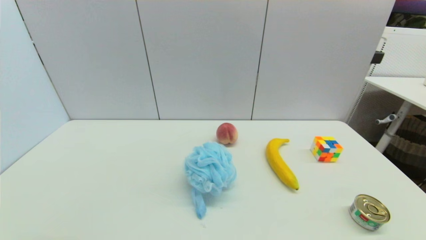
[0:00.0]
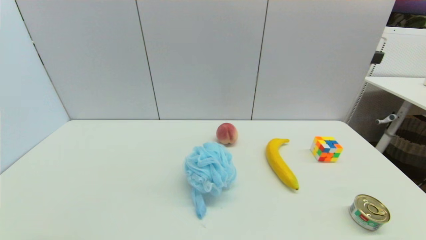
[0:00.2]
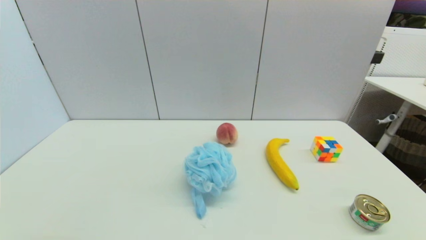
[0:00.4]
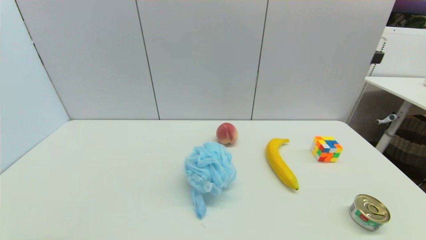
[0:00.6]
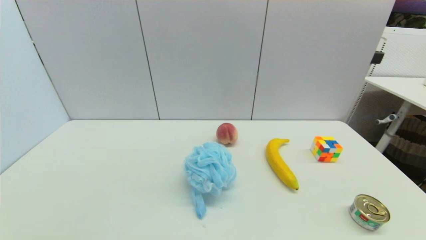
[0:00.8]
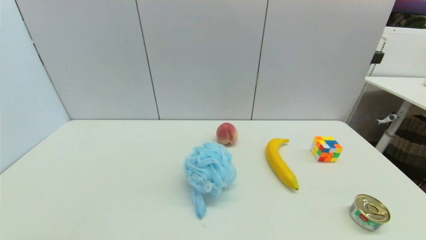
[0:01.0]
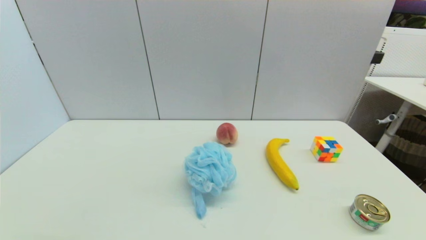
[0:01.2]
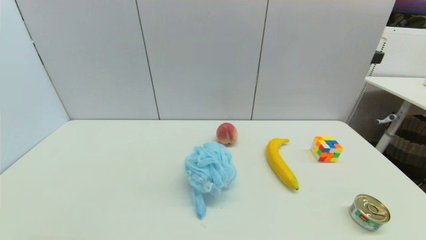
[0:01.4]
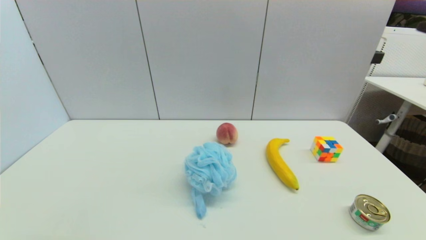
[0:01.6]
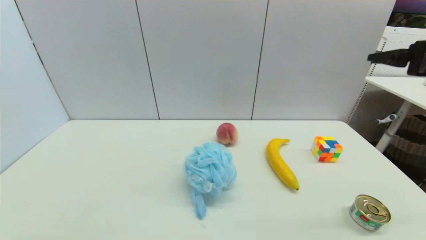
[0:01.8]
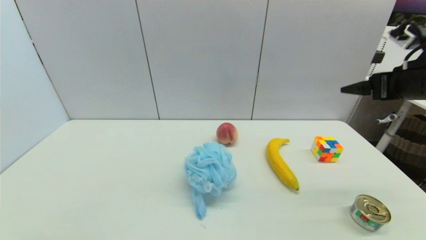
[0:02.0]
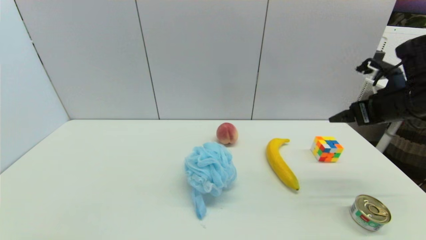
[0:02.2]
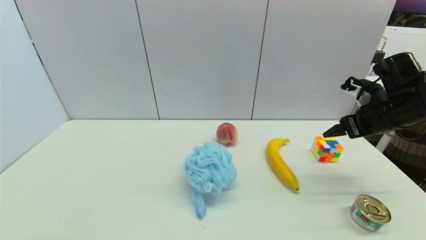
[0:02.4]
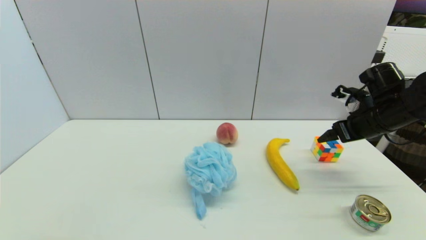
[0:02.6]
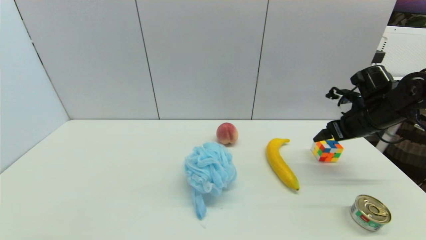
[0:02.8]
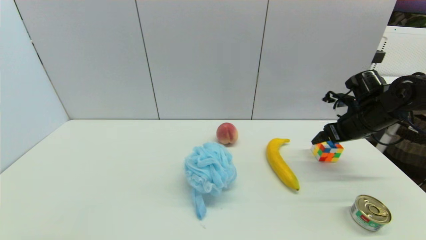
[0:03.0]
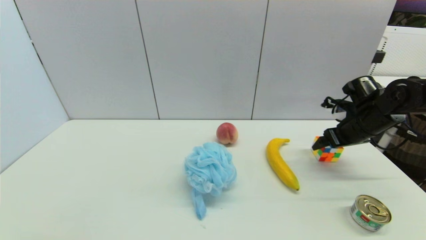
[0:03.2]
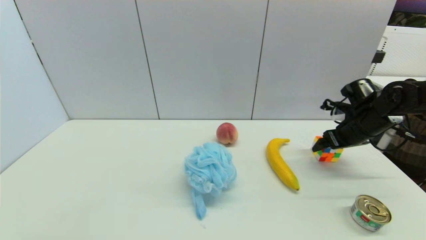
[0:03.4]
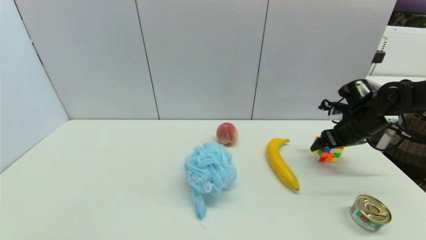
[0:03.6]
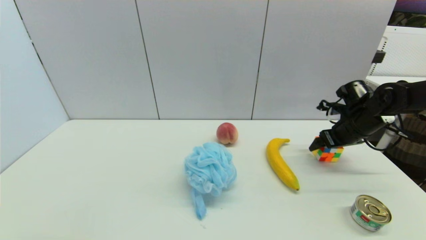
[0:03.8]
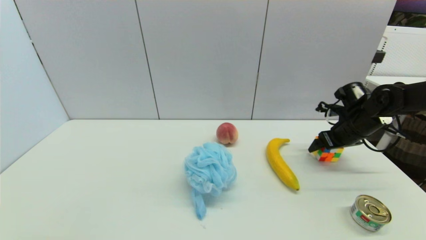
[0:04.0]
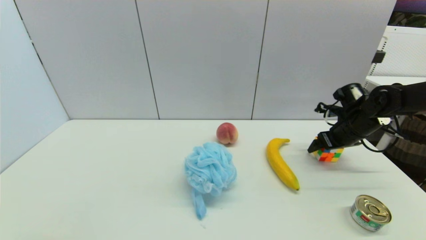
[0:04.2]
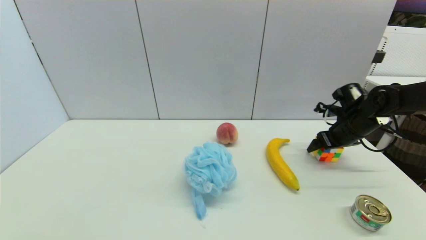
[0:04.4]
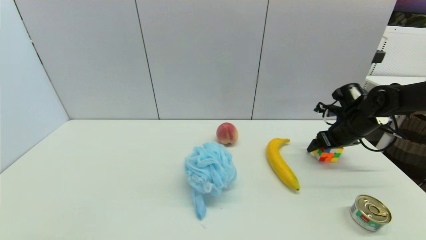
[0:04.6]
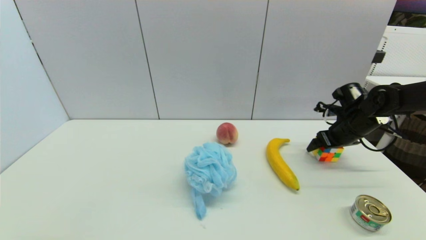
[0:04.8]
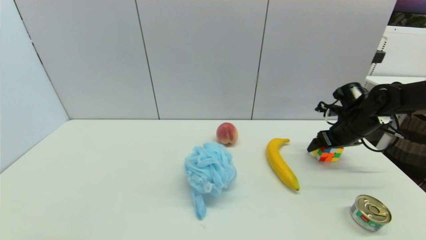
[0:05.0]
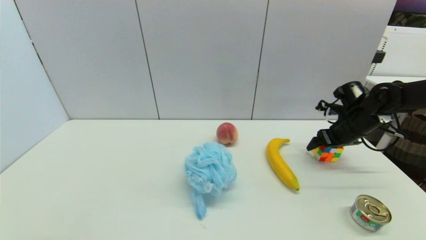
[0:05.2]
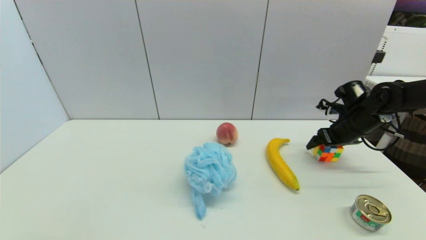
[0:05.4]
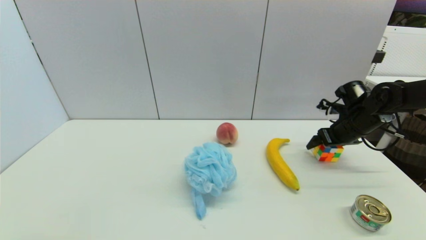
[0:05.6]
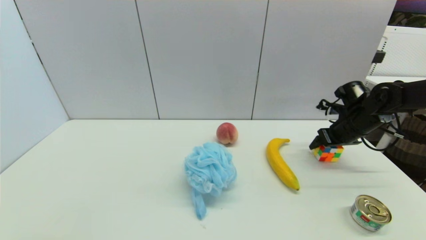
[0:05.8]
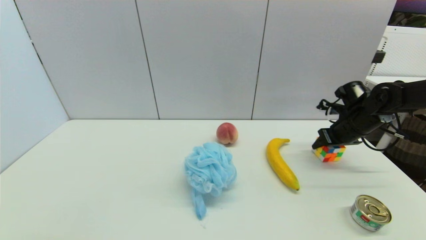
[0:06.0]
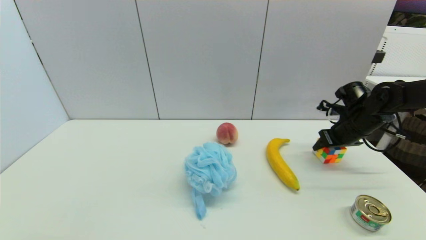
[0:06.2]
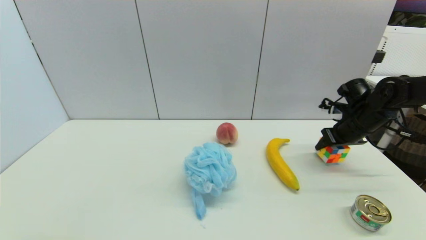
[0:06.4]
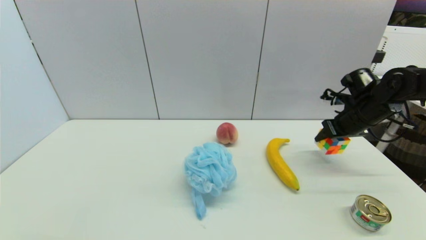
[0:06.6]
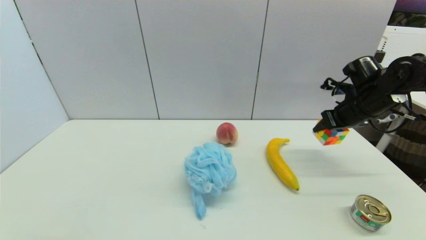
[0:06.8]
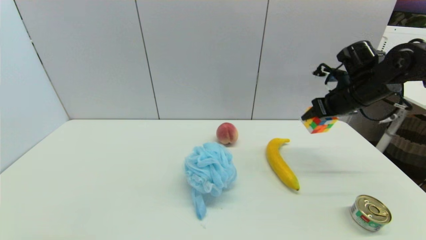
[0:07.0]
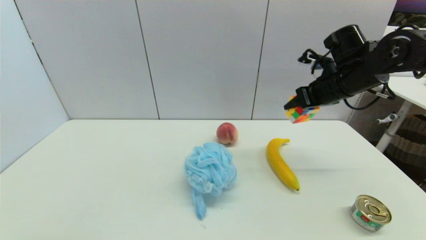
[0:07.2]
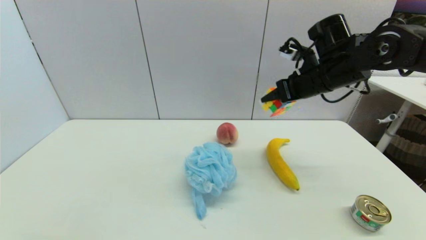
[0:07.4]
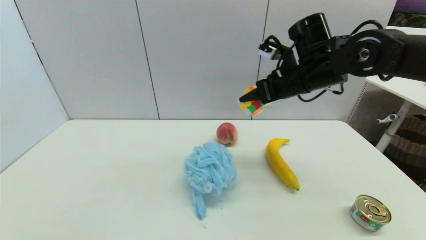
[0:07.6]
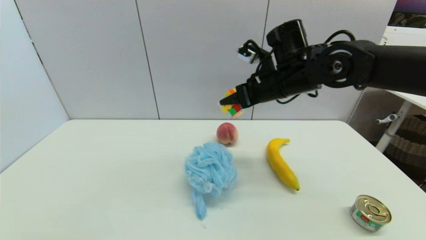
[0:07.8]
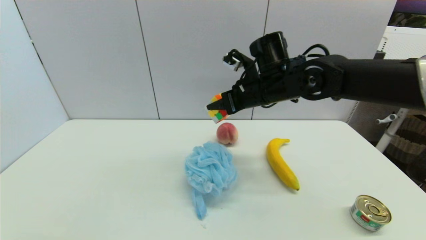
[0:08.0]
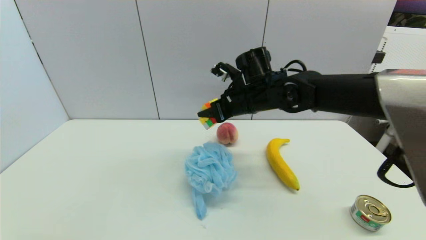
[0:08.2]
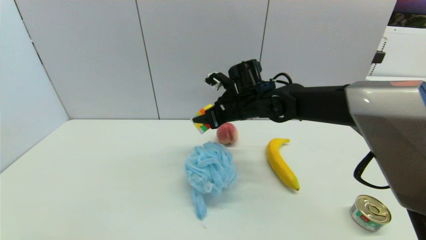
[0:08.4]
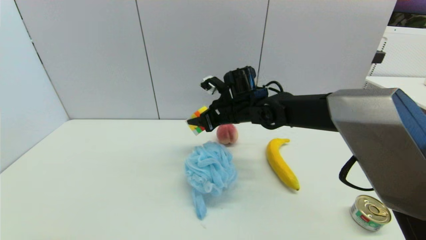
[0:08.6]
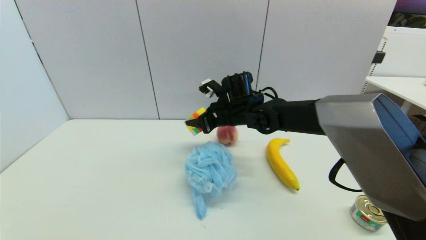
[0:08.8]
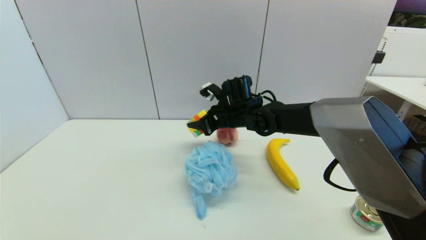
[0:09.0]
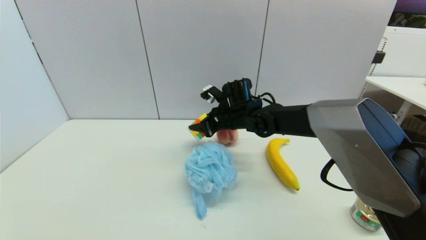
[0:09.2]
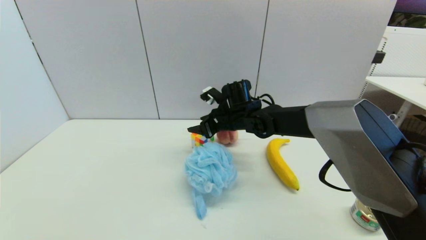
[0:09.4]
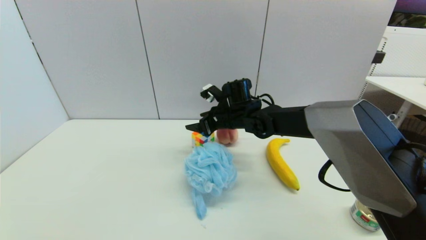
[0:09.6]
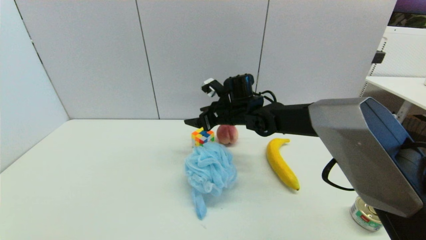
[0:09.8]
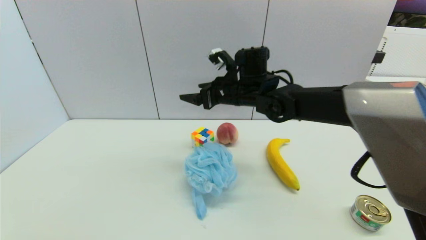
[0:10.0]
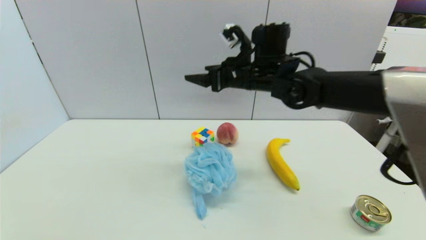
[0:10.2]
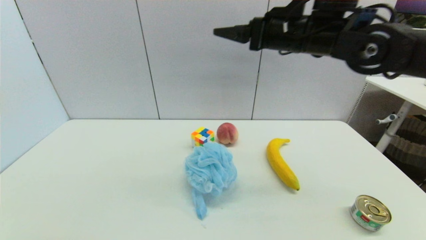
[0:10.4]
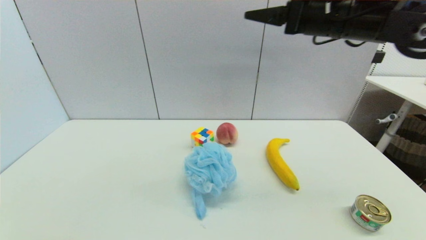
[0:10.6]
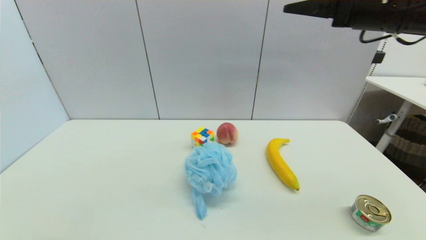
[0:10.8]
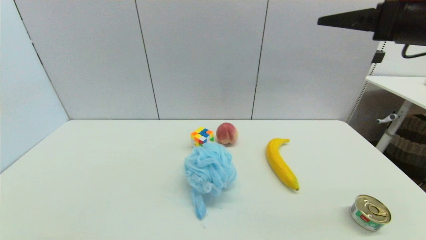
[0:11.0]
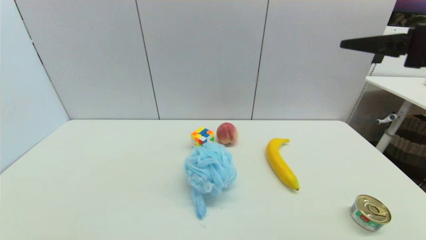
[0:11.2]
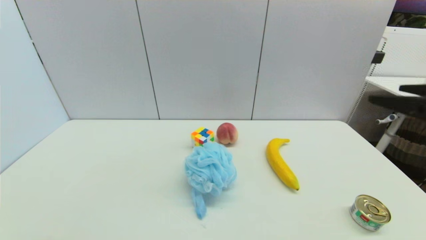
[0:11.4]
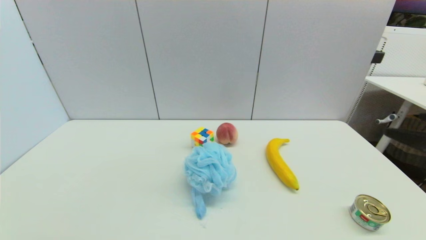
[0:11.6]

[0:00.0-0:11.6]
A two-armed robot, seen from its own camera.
Step, 0:01.8 to 0:06.0: Grasp the magic cube with right gripper.
Step, 0:06.2 to 0:09.6: Place the magic cube on the table with right gripper.
0:01.4 to 0:02.8: The right gripper goes roughly 30 cm forward and downward.
0:02.8 to 0:04.4: The right gripper shifts approximately 5 cm downward.
0:04.4 to 0:05.8: The right gripper closes.
0:05.8 to 0:07.2: The right gripper travels upward and to the left by some 15 cm, and closes.
0:07.2 to 0:08.8: The right gripper shifts some 25 cm to the left and downward.
0:08.8 to 0:10.2: The right gripper shifts some 10 cm upward, and opens up.
0:10.2 to 0:11.6: The right gripper travels backward and to the right by some 35 cm.
